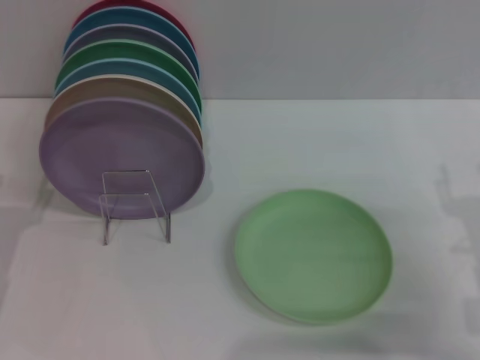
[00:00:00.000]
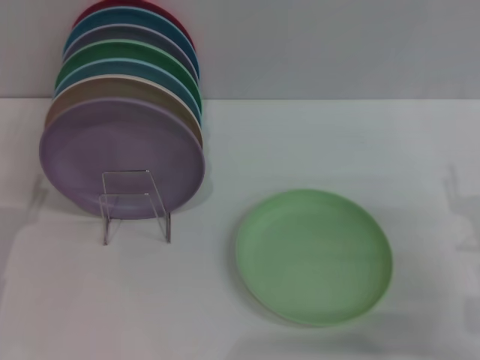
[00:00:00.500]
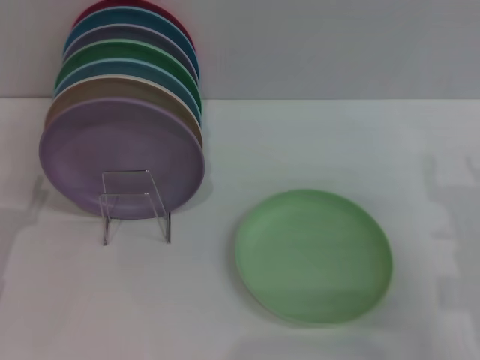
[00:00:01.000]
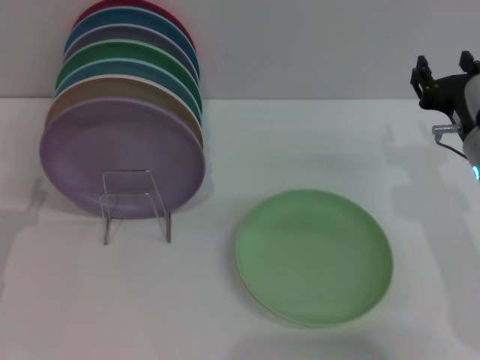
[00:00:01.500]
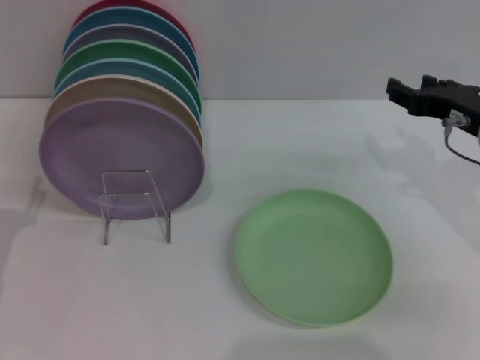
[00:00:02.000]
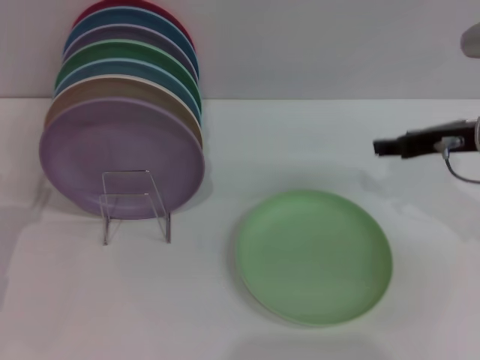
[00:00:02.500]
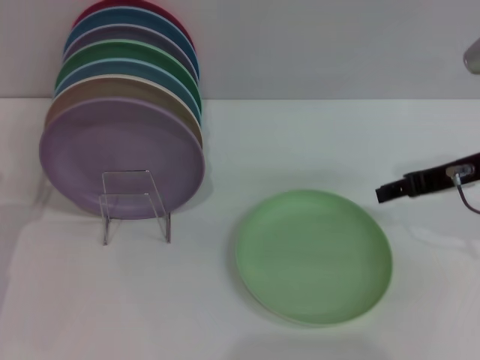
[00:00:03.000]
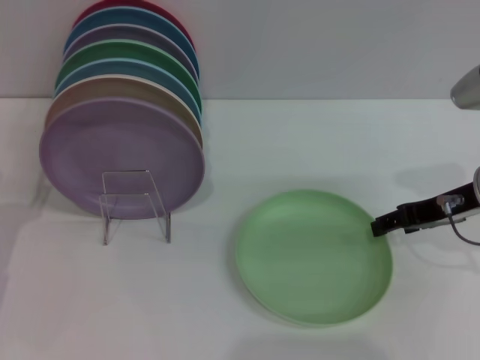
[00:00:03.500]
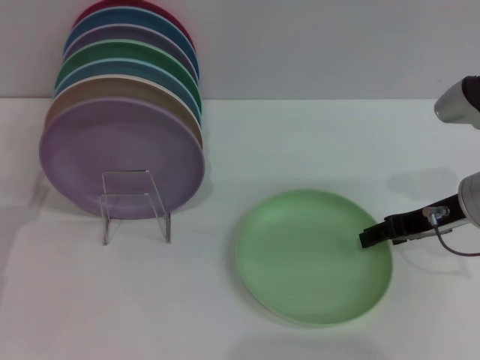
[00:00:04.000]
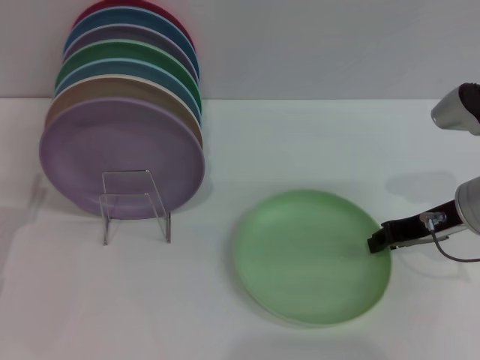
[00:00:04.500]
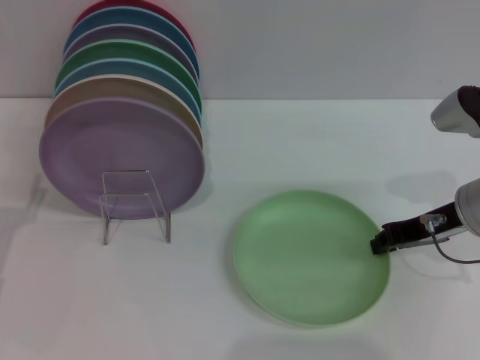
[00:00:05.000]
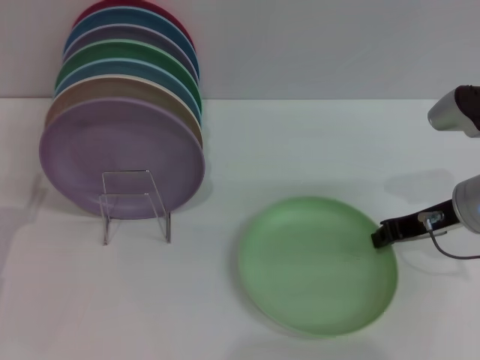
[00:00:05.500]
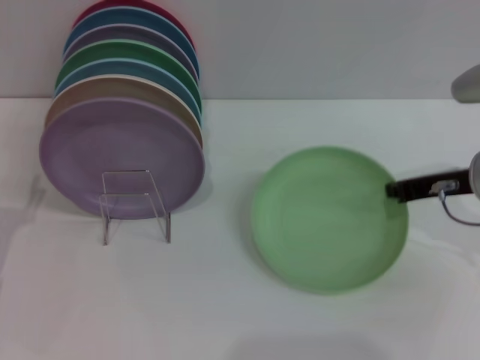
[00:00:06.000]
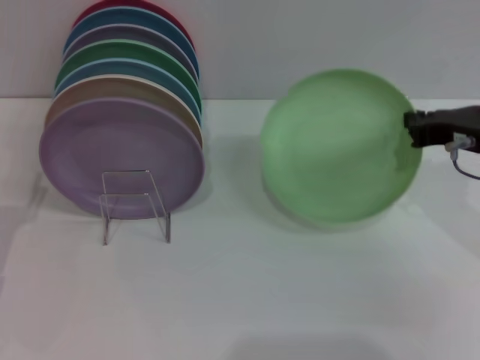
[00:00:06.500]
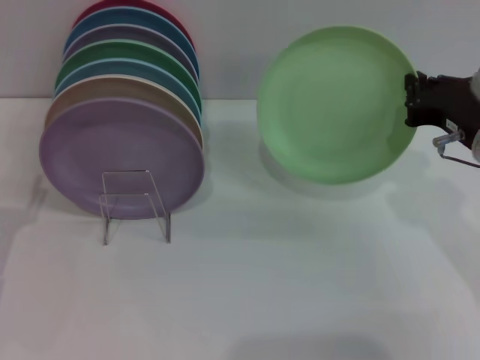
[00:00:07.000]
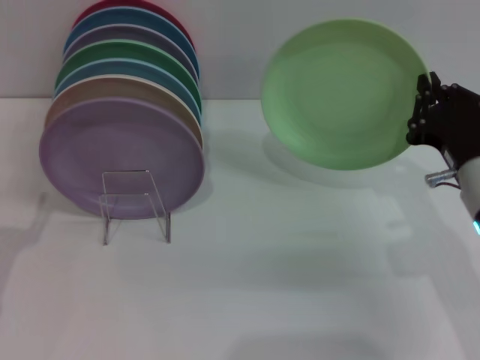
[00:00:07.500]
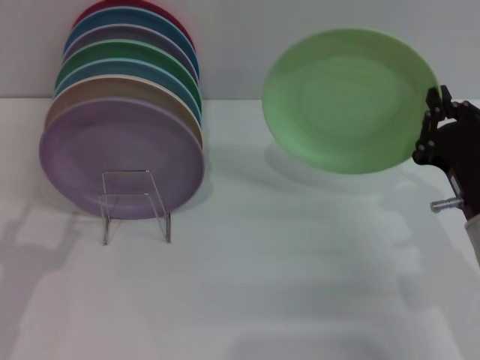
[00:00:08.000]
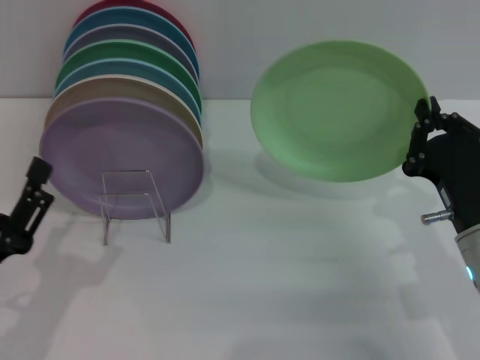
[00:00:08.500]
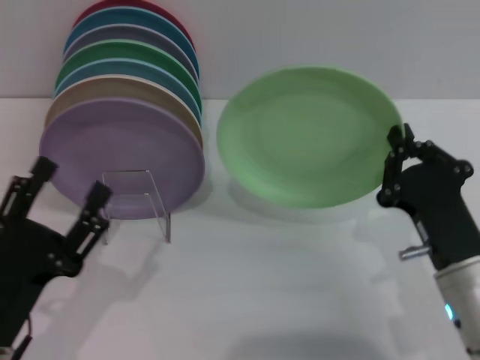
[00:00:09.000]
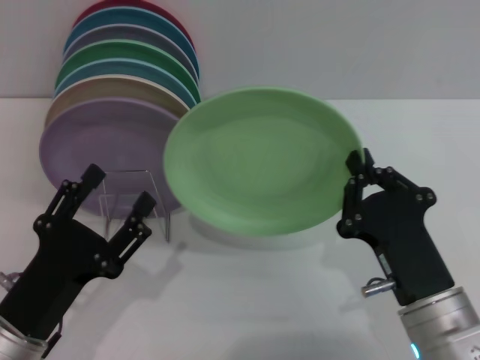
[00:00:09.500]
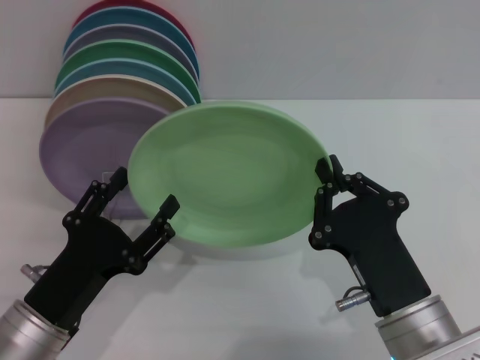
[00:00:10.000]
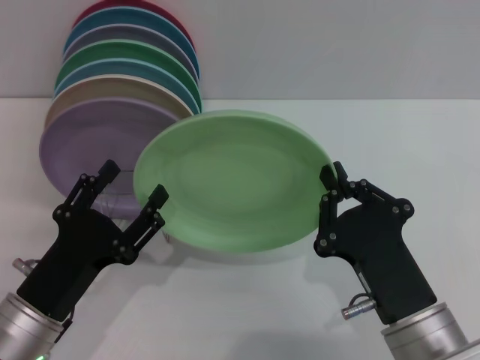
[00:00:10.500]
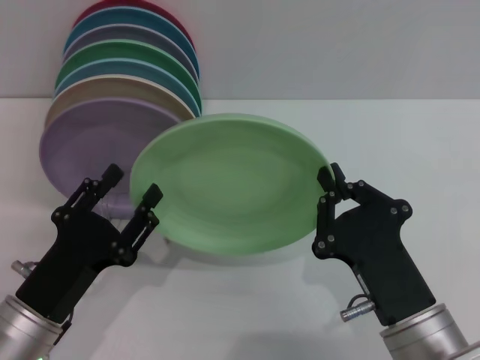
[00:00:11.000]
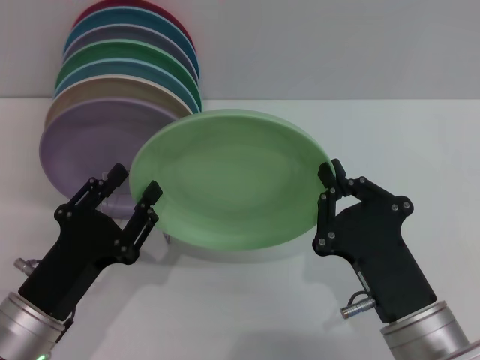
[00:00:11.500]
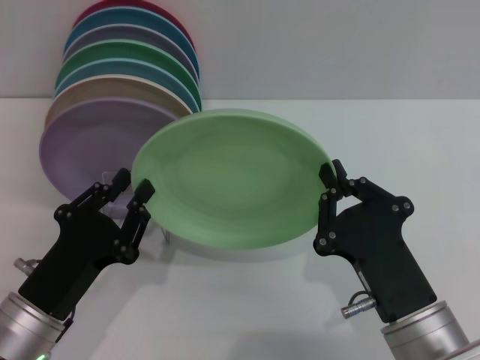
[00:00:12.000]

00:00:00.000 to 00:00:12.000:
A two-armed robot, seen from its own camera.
Task of the whole recording: Grip the plate with one hand, pass it to the other, then set it on the shelf.
Step, 00:00:00.000 to 00:00:07.500: Pick up the plate with the right gripper.
00:00:00.000 to 00:00:02.000: The right gripper goes about 15 cm forward and upward.
00:00:04.000 to 00:00:06.000: The right gripper closes.
00:00:06.000 to 00:00:08.000: The left gripper moves backward, about 5 cm. Meanwhile the right gripper is displaced backward and downward by approximately 10 cm.
00:00:08.000 to 00:00:10.000: The left gripper goes approximately 10 cm to the right, while the right gripper is displaced to the left and backward by about 10 cm.
00:00:10.000 to 00:00:12.000: The left gripper closes up.

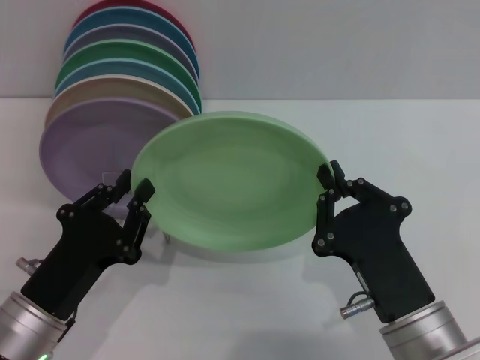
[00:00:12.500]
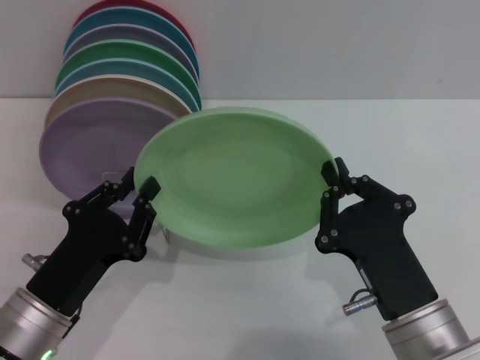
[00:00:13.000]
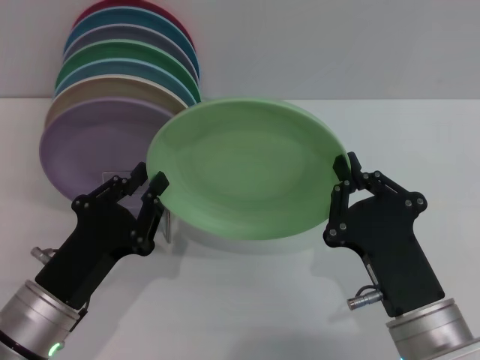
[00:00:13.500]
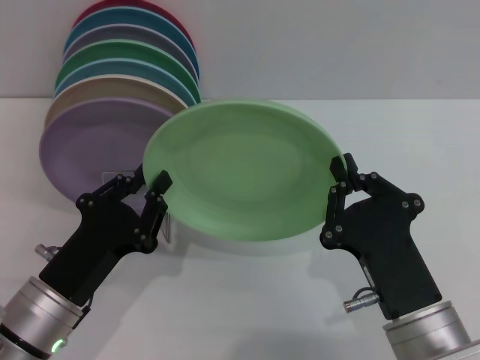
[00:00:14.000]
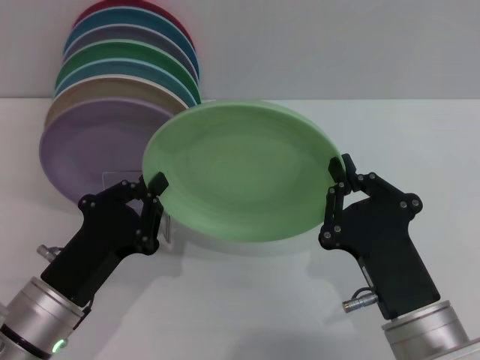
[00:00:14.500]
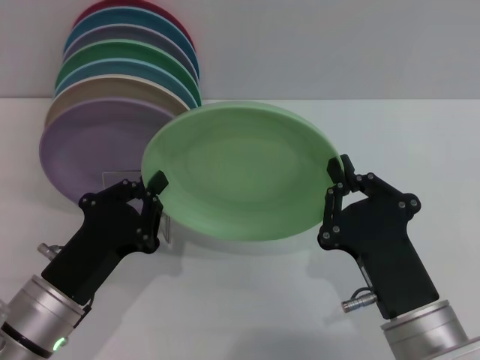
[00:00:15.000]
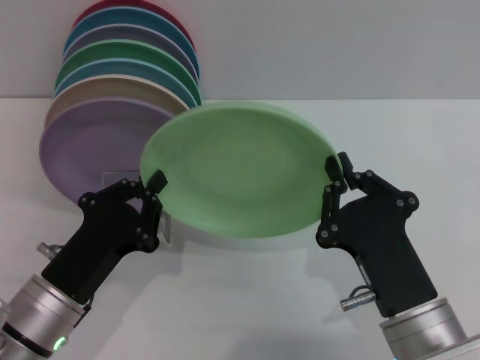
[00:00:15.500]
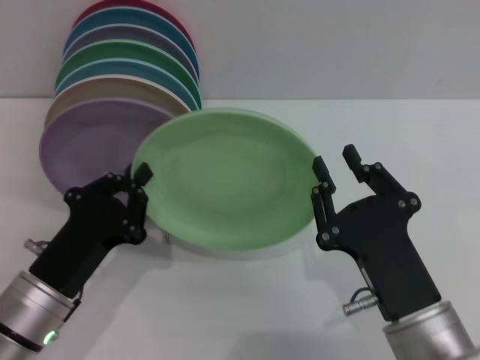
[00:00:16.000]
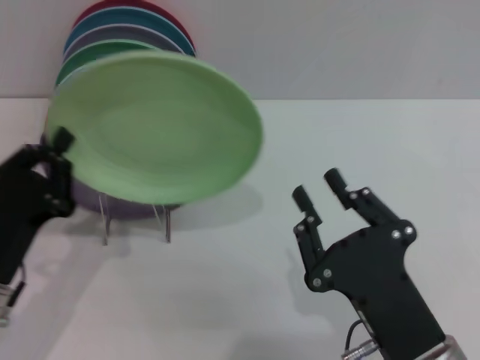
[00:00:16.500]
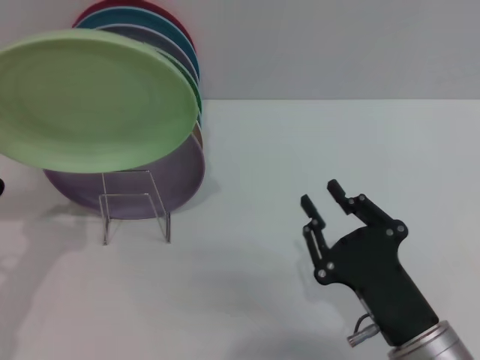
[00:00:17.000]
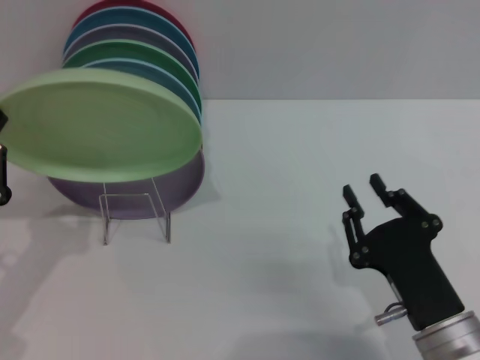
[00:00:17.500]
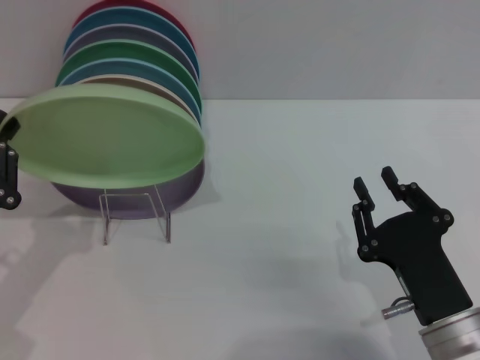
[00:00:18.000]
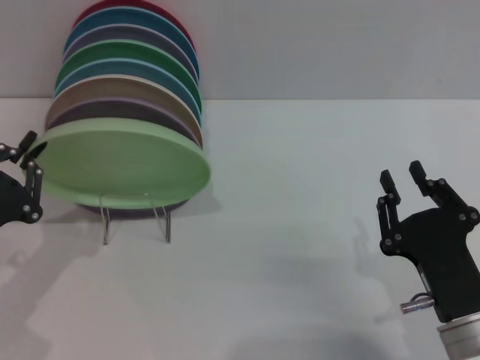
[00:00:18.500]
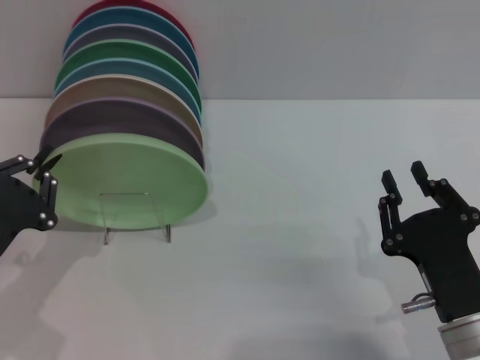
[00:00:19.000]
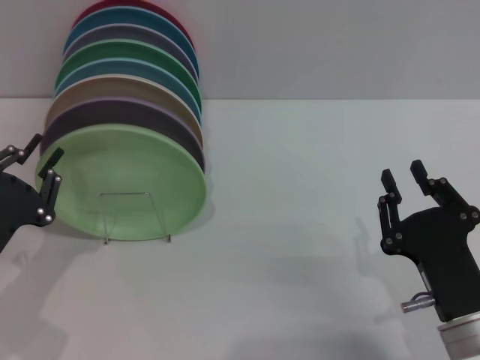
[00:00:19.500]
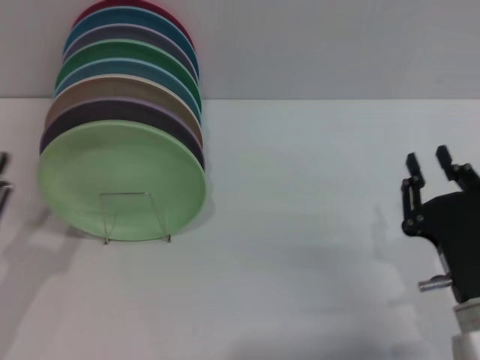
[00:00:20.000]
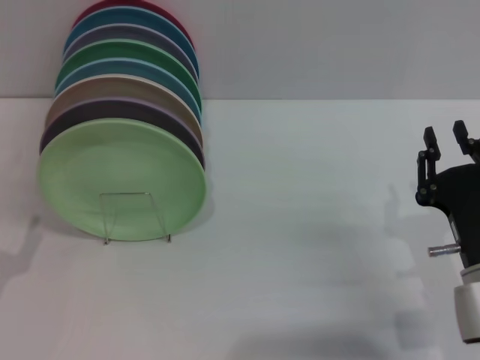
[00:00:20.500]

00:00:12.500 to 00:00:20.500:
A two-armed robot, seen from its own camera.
Task of the whole recording: Grip the plate with one hand, pass it to the other, then set it on the shelf.
Step, 00:00:12.500 to 00:00:16.000: Pass the plate from the right gripper to the left gripper.
Step, 00:00:16.500 to 00:00:19.500: Place the plate on the shelf with the left gripper.
00:00:12.500 to 00:00:14.500: The grippers stay close to where they were, moving slightly.
00:00:14.500 to 00:00:16.500: The right gripper opens its fingers.
00:00:16.500 to 00:00:18.500: The right gripper heads to the right, covering about 5 cm; the left gripper travels to the left by approximately 5 cm.
00:00:18.500 to 00:00:20.500: The right gripper moves roughly 5 cm. Meanwhile the left gripper ends up approximately 5 cm from where it was, and opens.
